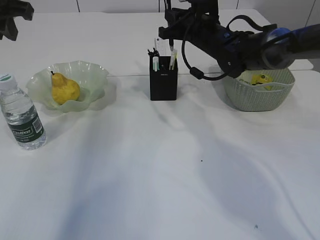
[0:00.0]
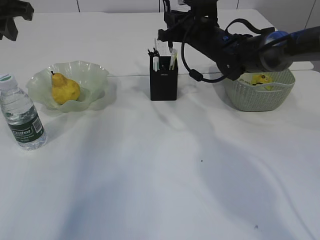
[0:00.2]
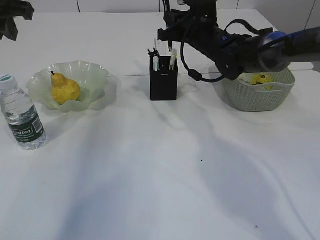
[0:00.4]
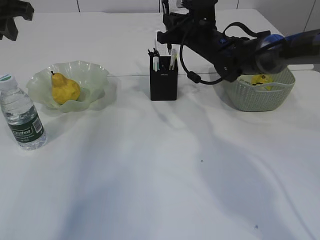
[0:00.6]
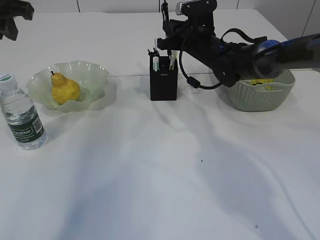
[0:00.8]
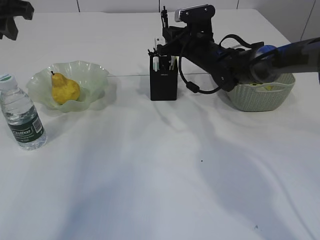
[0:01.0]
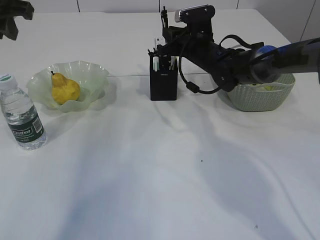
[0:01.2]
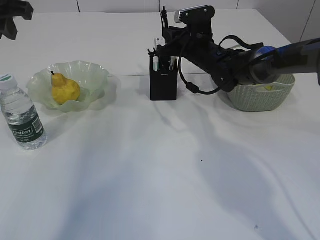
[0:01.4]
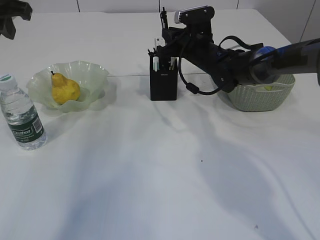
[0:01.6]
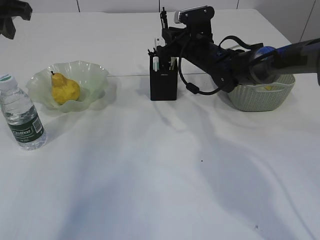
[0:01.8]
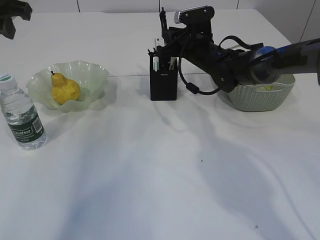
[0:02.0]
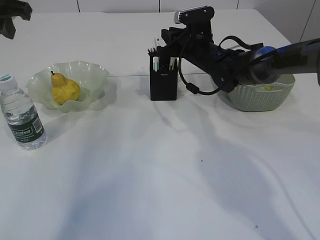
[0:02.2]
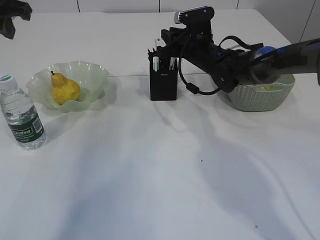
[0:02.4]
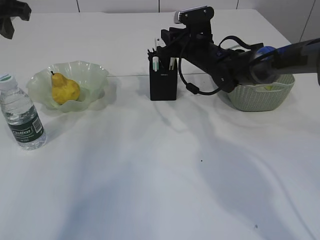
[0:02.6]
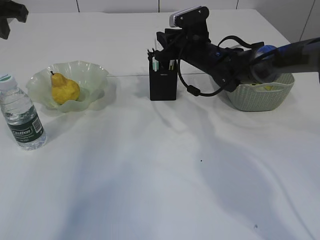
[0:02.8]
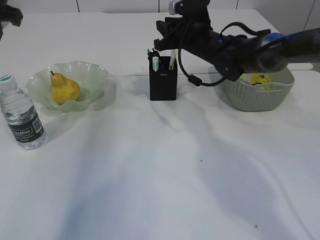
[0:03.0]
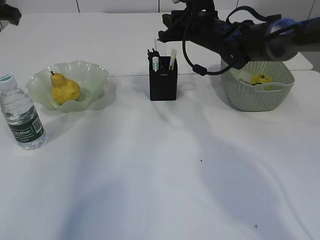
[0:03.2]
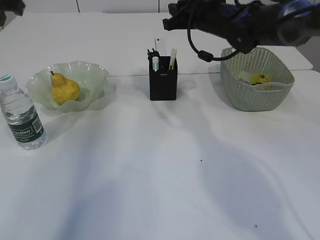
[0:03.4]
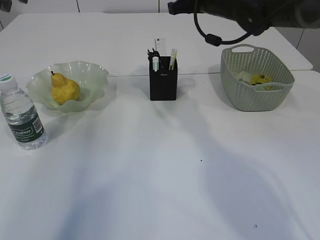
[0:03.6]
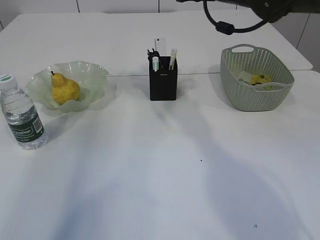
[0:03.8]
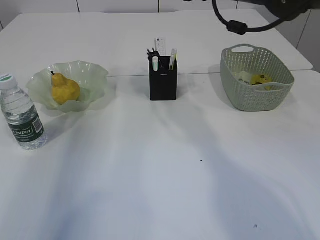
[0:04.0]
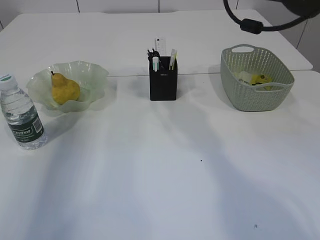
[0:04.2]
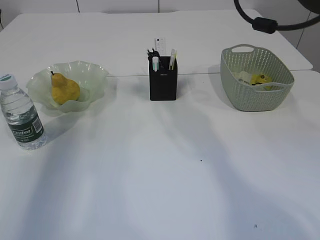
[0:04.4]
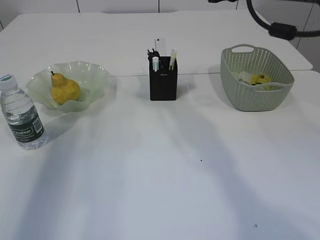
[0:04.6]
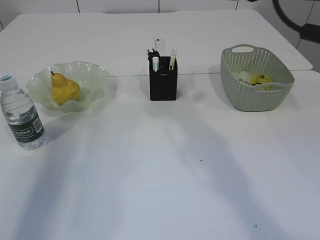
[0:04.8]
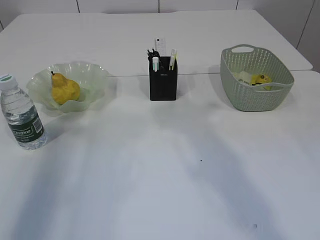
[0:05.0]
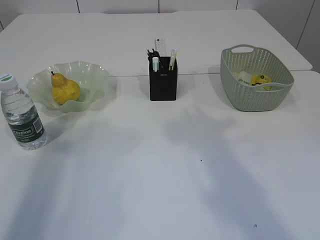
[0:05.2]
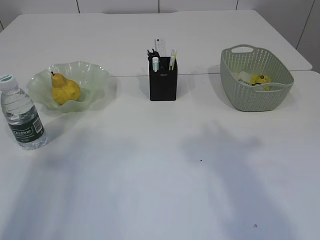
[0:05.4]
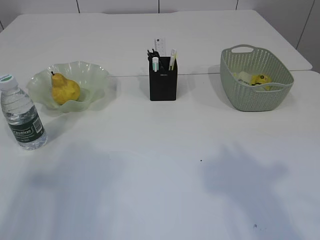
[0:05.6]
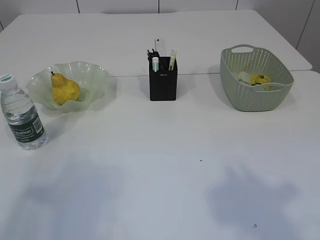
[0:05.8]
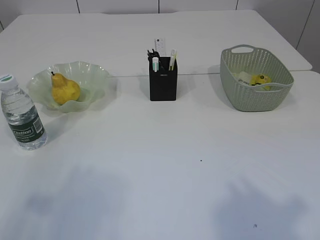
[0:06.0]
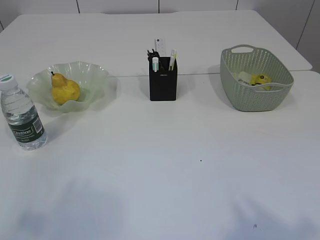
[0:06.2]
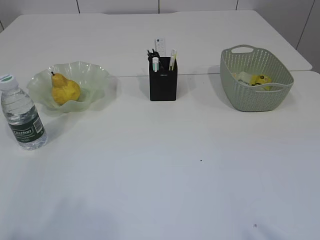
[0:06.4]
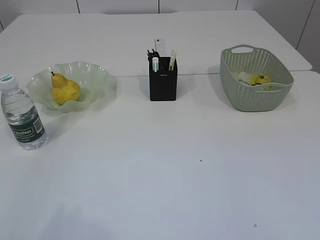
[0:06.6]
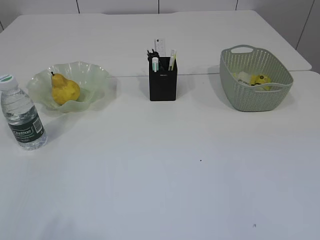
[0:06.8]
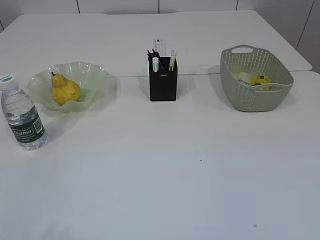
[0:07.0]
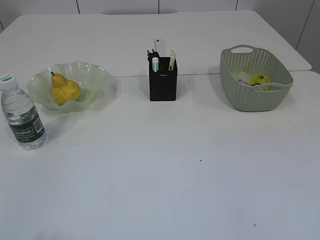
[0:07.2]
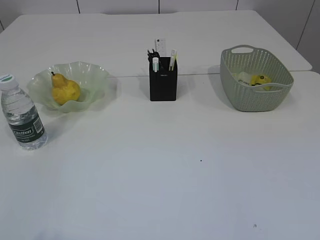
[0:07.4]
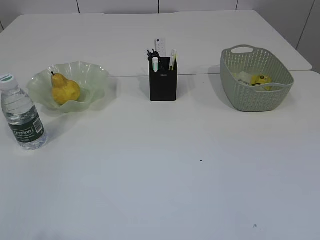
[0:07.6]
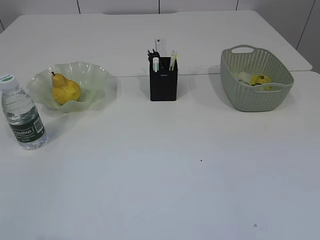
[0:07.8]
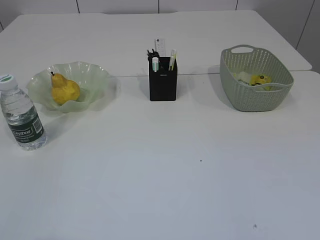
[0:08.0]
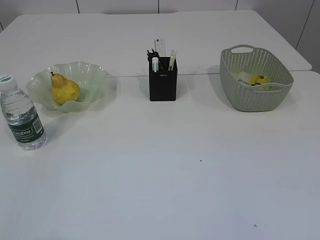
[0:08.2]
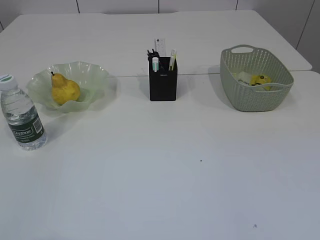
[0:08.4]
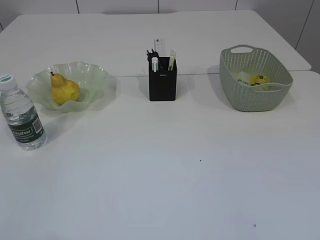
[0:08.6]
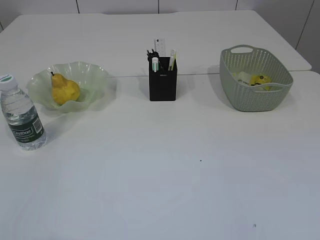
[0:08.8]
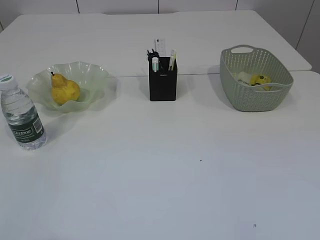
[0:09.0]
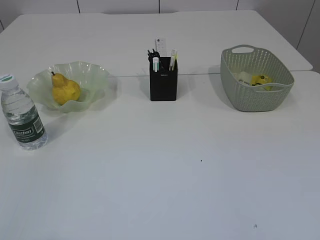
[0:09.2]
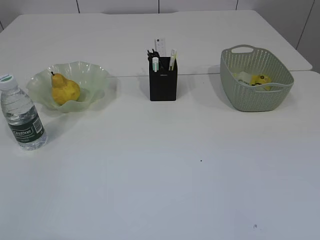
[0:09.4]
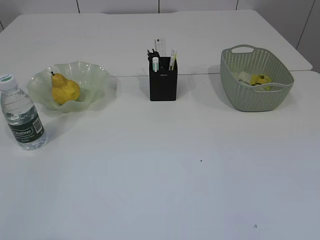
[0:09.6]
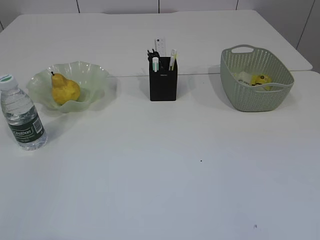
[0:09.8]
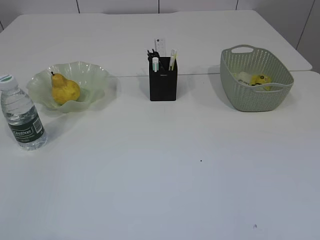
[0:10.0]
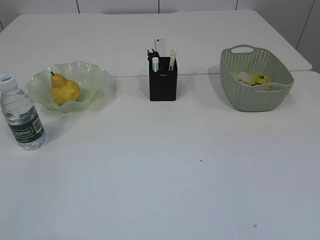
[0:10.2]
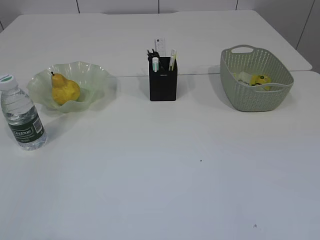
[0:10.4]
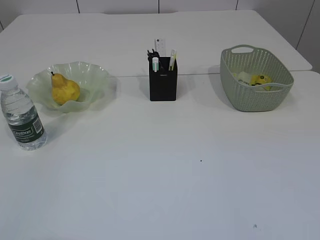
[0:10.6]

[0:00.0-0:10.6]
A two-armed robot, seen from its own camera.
Step, 0:00.0 to 0:03.0: Place the pen into the pen holder.
0:00.0 to 0:03.0: There are only small adjustments of the grippers.
0:03.0 to 0:04.6: The right gripper travels upward and backward by roughly 20 cm, while the left gripper heads backward, covering some 5 cm.
0:04.6 to 0:06.0: The two grippers go approximately 25 cm backward.

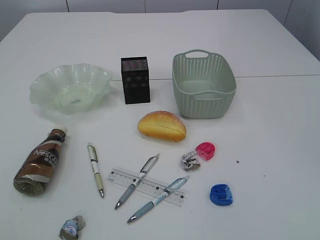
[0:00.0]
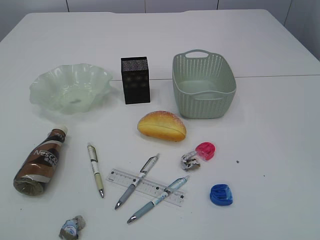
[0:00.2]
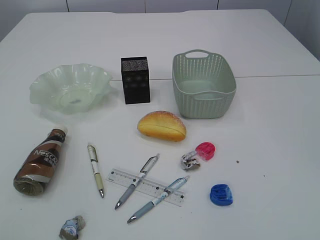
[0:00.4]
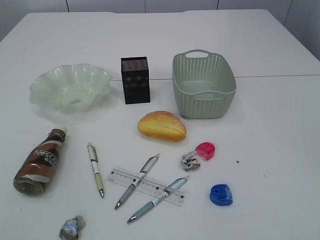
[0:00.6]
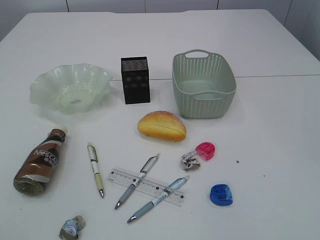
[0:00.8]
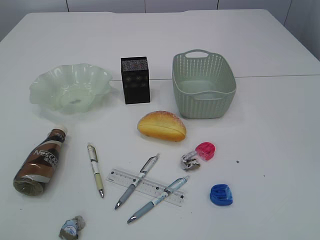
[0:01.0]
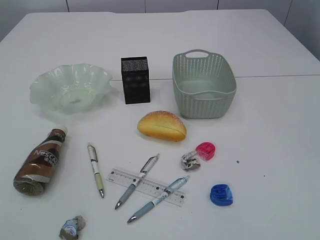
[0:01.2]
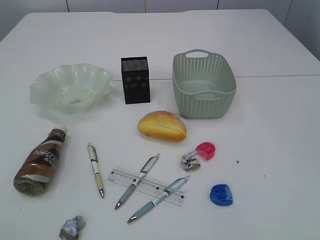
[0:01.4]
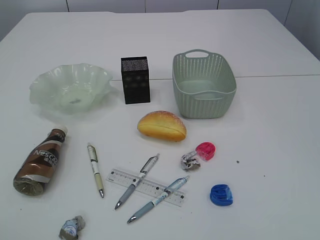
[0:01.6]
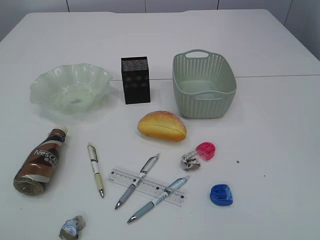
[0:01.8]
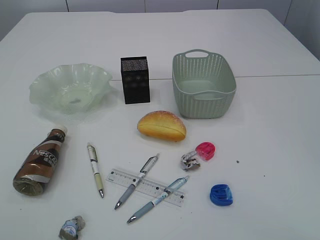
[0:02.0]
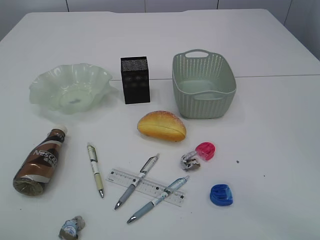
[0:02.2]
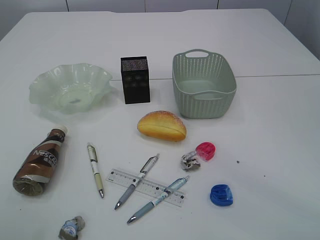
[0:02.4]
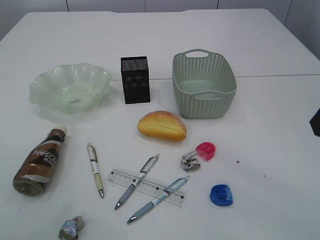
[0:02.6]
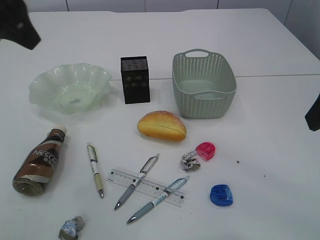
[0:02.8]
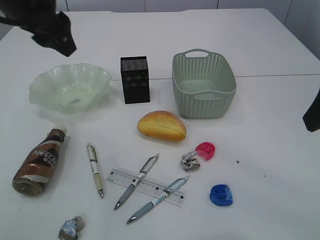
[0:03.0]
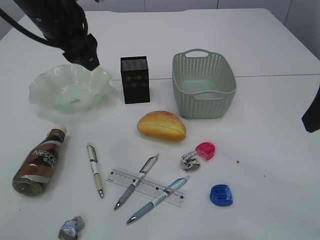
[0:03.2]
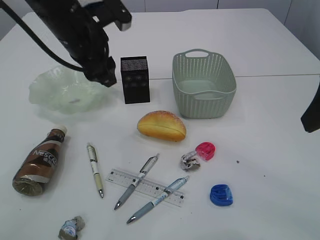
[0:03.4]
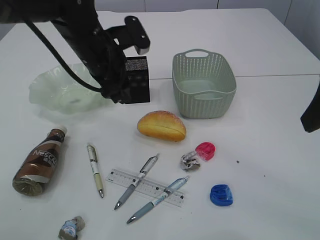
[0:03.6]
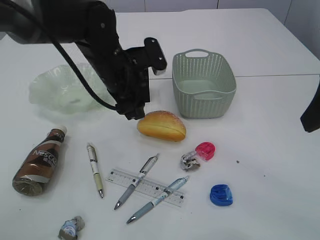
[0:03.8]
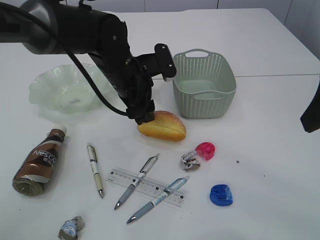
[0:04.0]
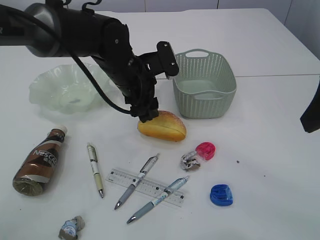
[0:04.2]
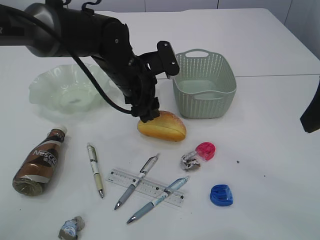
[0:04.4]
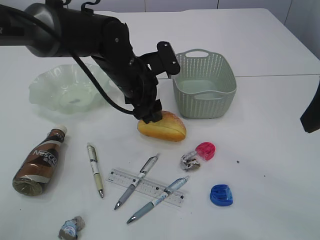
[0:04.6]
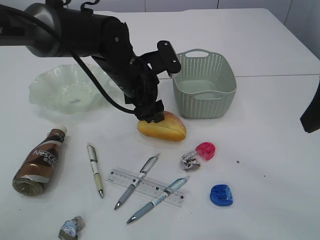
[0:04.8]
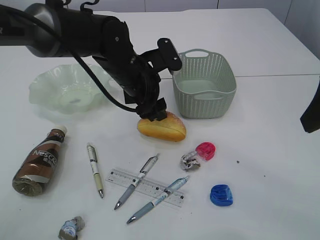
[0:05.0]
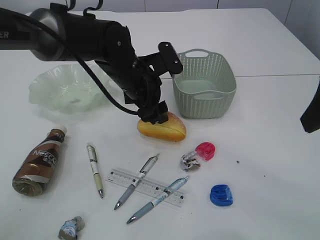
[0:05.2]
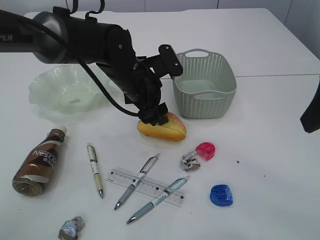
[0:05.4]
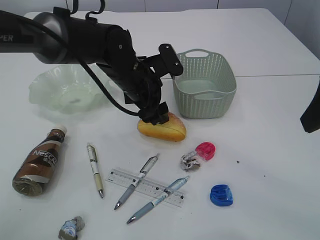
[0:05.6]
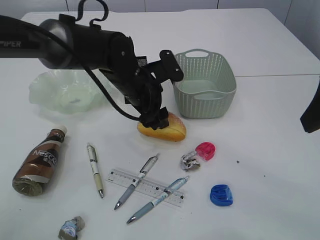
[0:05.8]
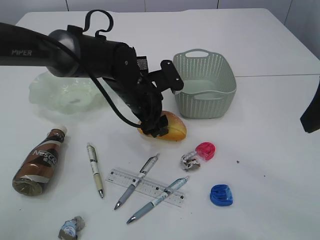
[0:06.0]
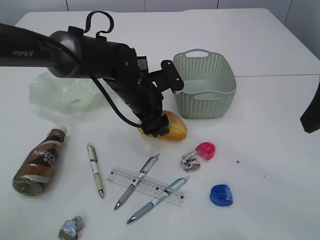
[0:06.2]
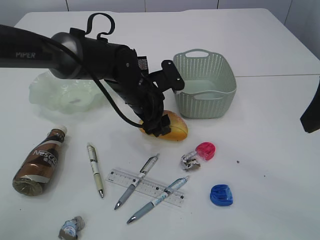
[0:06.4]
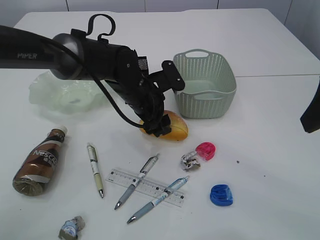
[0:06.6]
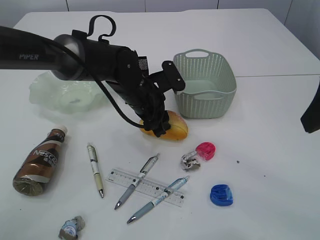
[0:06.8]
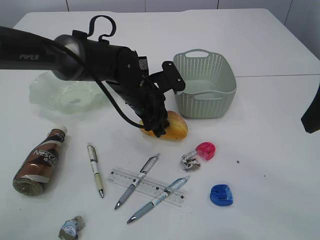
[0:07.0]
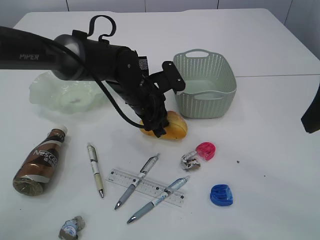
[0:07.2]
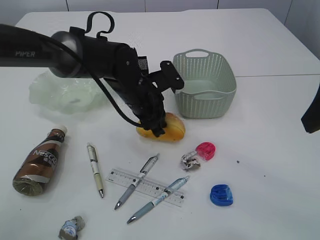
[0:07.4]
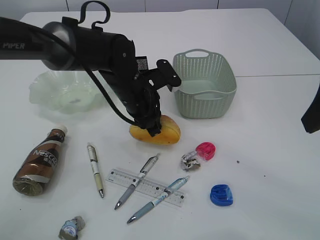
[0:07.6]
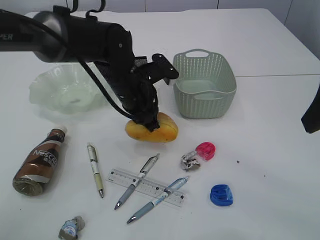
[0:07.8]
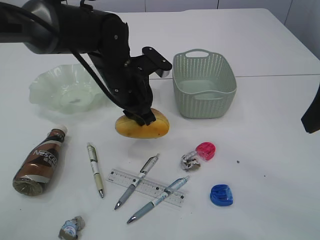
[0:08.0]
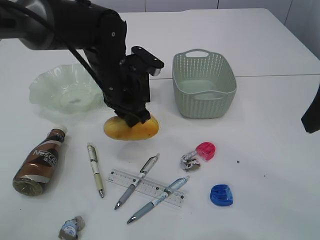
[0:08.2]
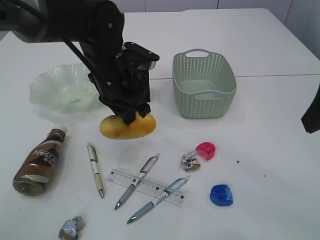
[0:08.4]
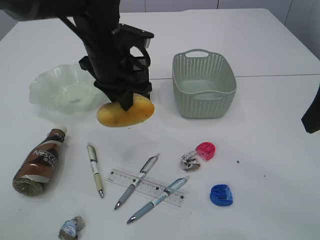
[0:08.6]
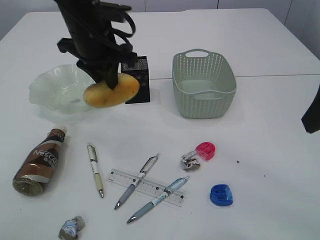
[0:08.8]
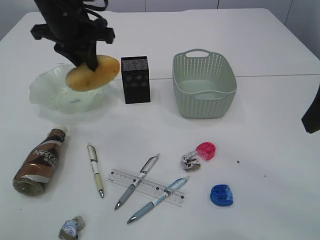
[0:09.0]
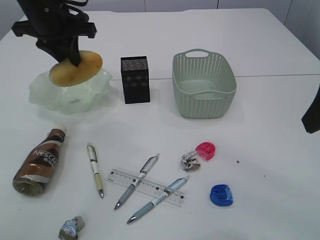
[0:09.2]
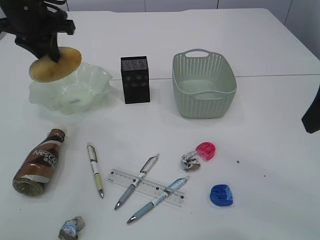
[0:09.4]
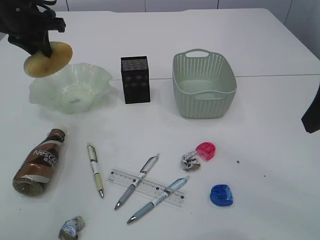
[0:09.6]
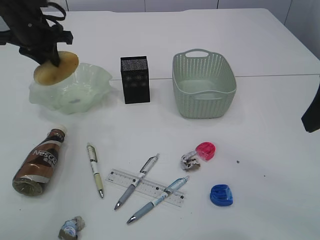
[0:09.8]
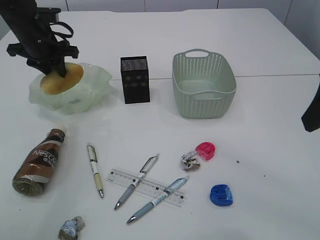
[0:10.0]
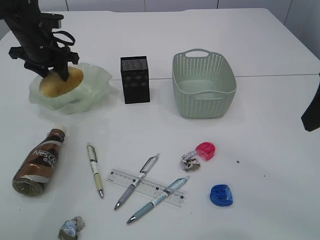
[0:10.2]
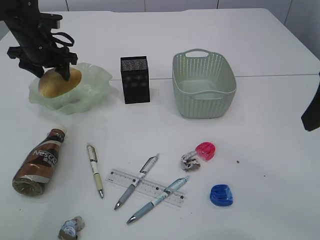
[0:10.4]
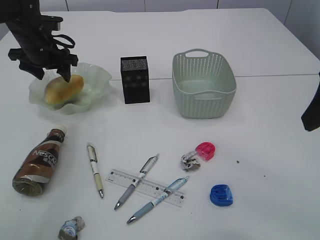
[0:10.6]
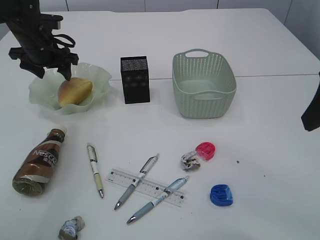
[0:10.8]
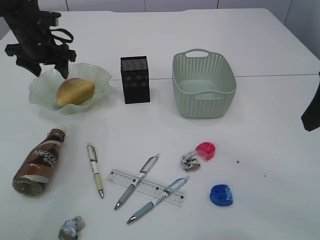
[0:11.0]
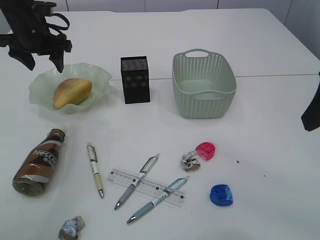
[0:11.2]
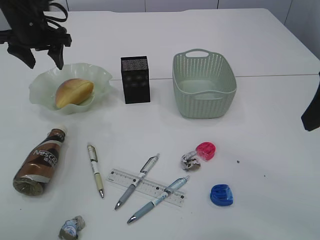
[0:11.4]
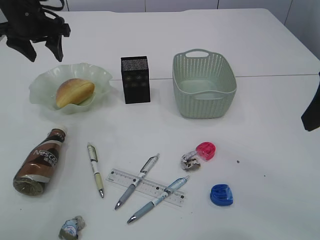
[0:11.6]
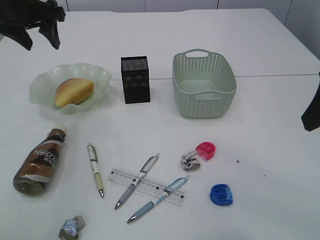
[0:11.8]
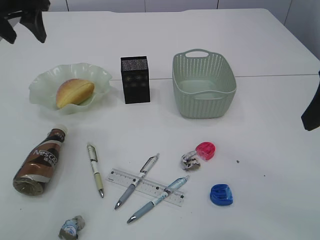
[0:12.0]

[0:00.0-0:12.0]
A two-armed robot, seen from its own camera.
Step, 0:08.2 to 0:11.2: place the bread in the plate.
0:01.6 to 0:03.0: The right gripper moves forward, about 25 cm. The left gripper is displaced forward and to the right by roughly 35 cm.
0:03.0 to 0:04.4: The left gripper moves downward and to the right, approximately 20 cm.
0:04.4 to 0:06.0: The grippers make only small movements.
0:06.0 to 0:07.6: The left gripper closes up.
0:07.6 to 0:09.0: The left gripper shifts approximately 20 cm upward and to the left.
0:09.0 to 0:10.4: The left gripper moves to the left, downward and forward, roughly 15 cm, and opens.
0:10.4 to 0:12.0: The left gripper shifts roughly 15 cm upward and backward.
